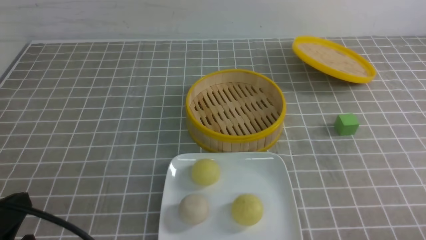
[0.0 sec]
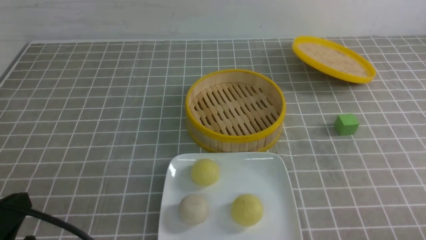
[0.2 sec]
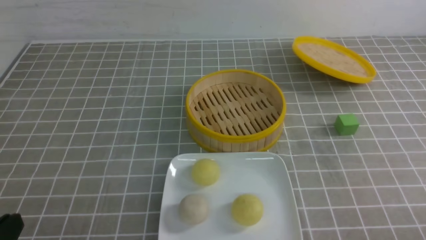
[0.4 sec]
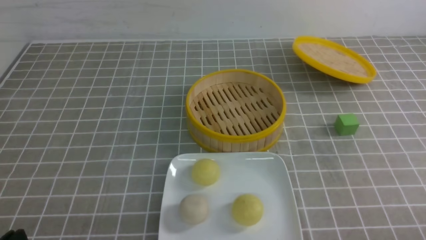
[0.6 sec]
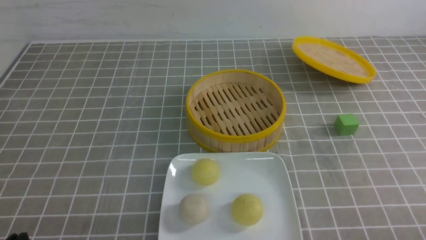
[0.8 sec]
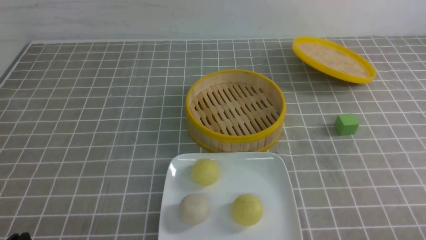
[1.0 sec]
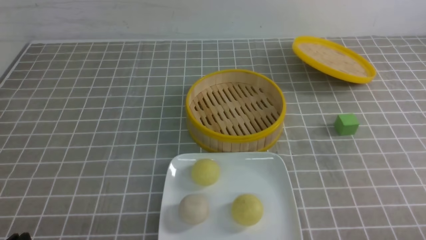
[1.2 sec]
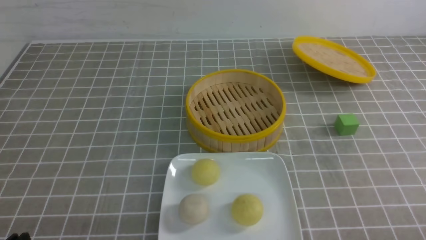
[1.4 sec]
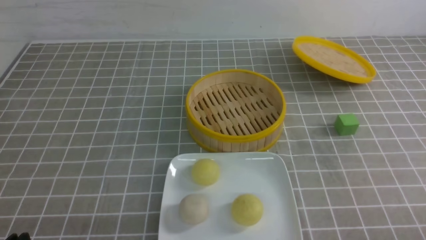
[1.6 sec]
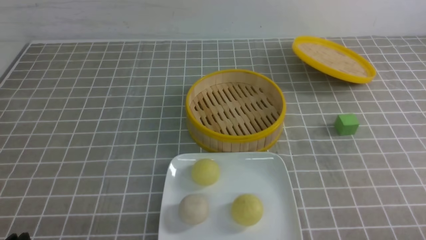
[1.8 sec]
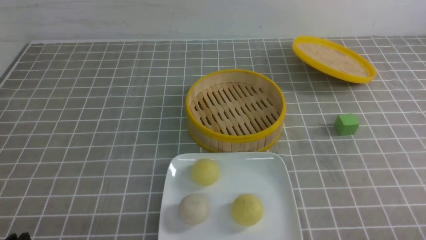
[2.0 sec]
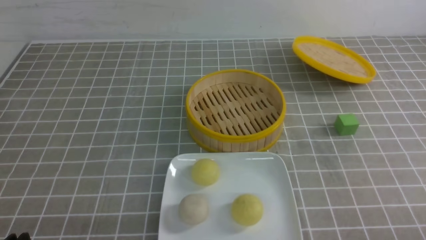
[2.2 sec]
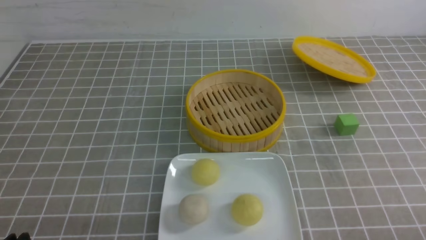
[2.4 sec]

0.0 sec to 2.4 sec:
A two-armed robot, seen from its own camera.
0.0 sec to 1.2 sec: The left gripper moves downward, about 10 cm.
1.2 sec to 2.4 sec: Both grippers stay put.
